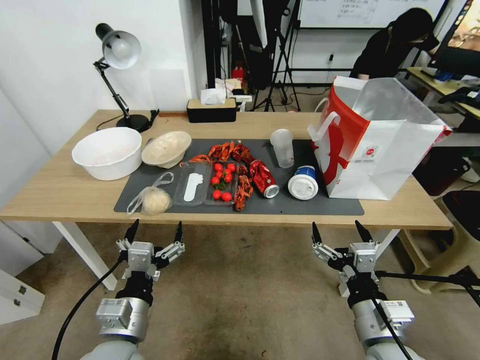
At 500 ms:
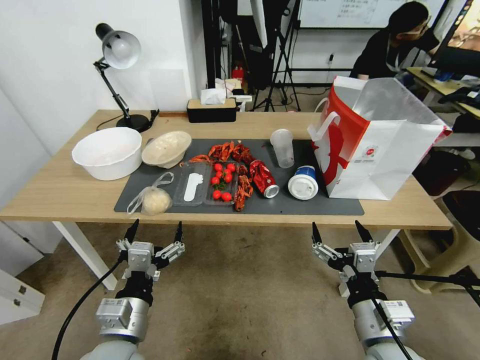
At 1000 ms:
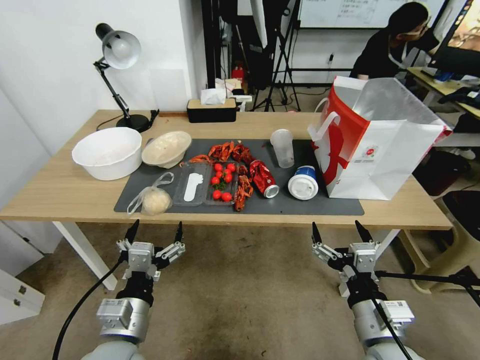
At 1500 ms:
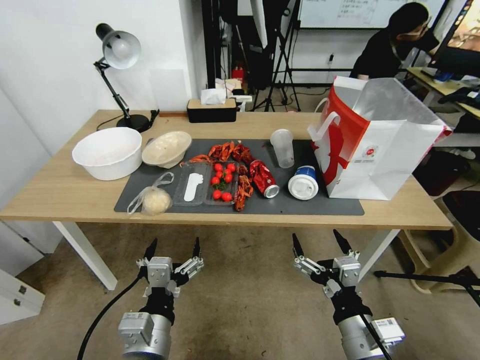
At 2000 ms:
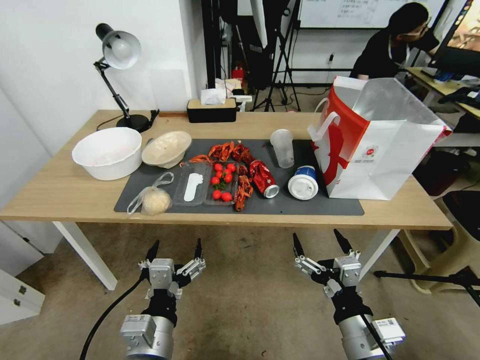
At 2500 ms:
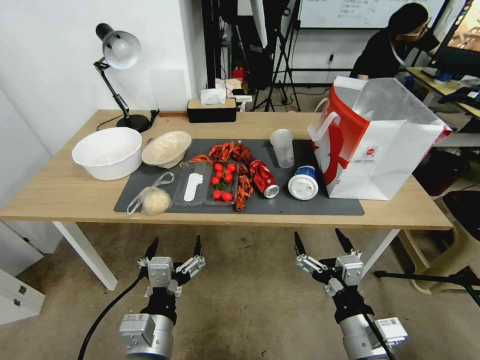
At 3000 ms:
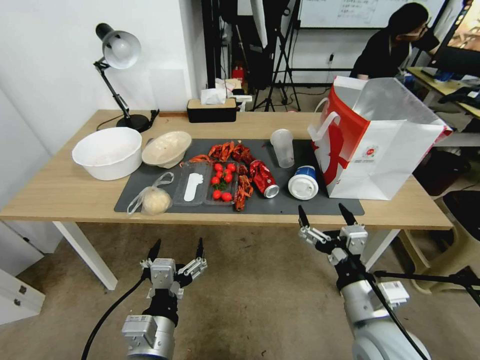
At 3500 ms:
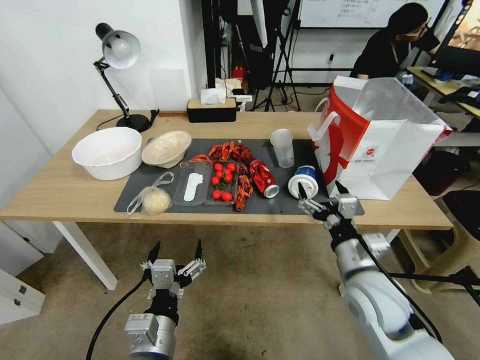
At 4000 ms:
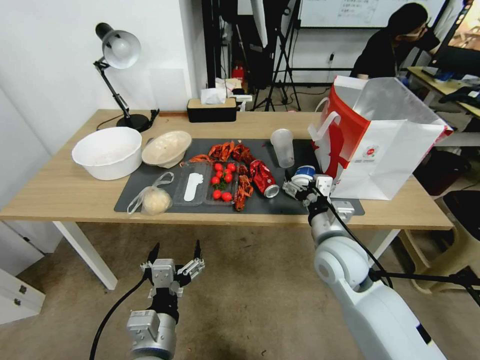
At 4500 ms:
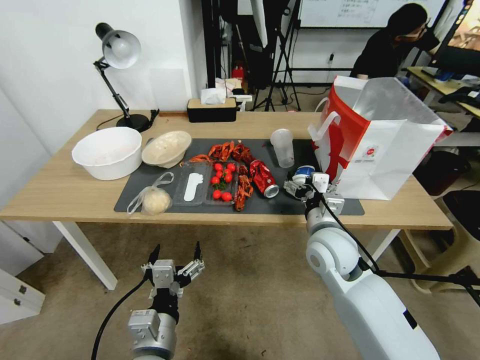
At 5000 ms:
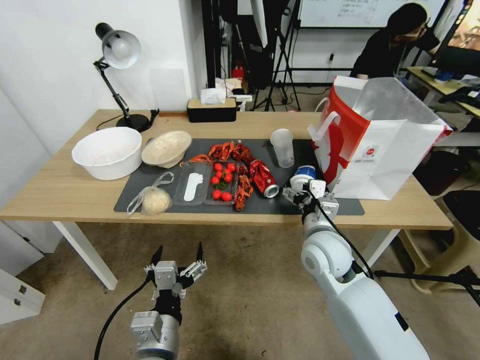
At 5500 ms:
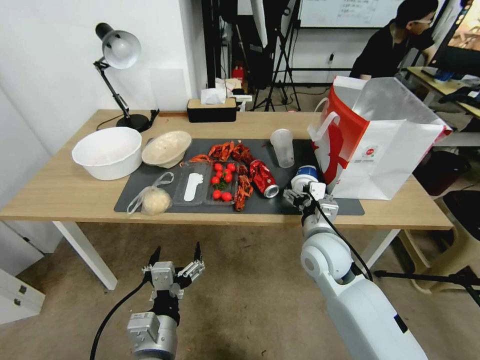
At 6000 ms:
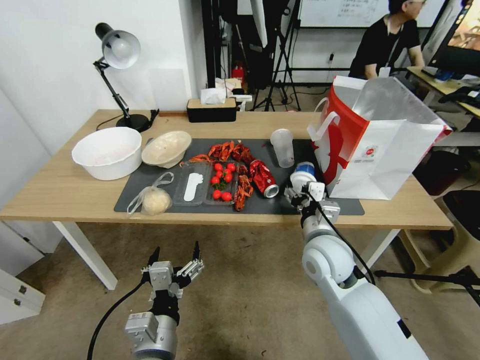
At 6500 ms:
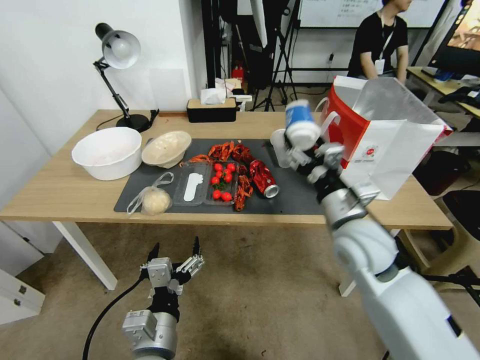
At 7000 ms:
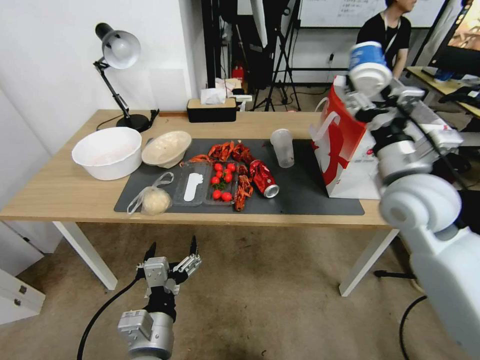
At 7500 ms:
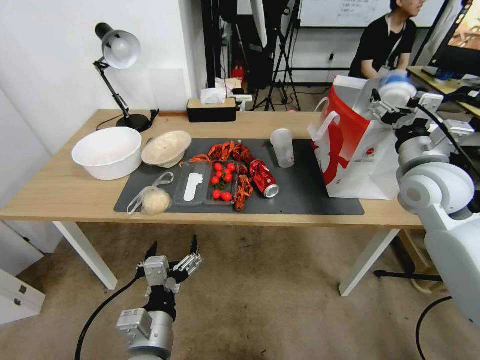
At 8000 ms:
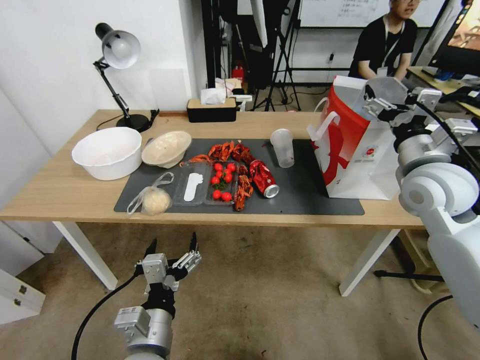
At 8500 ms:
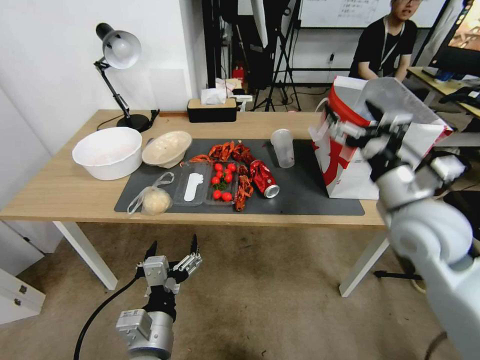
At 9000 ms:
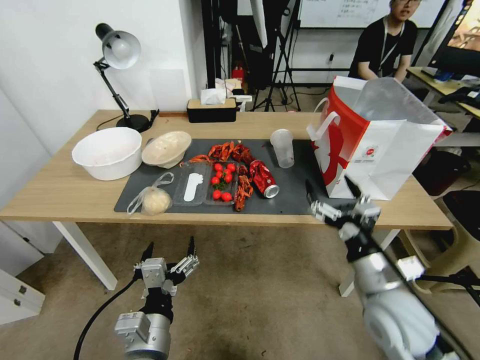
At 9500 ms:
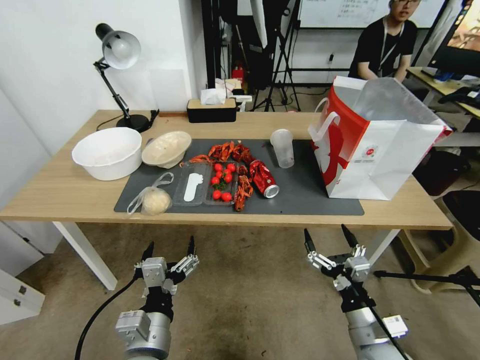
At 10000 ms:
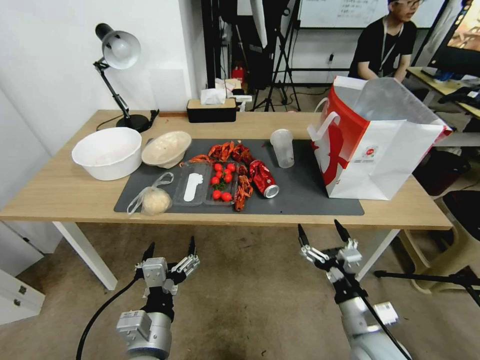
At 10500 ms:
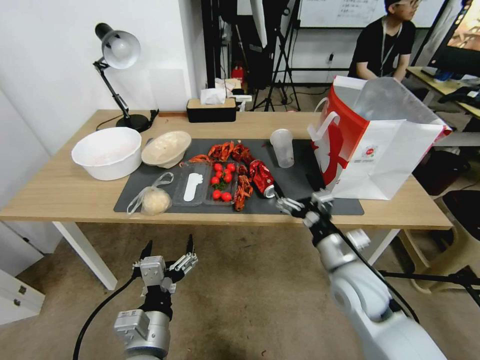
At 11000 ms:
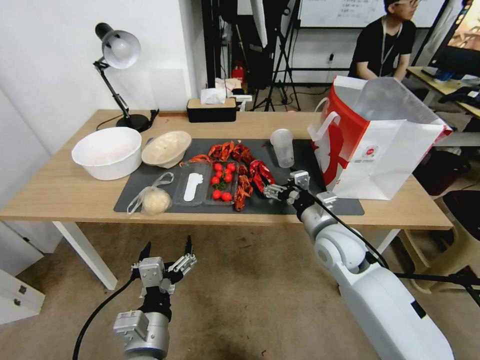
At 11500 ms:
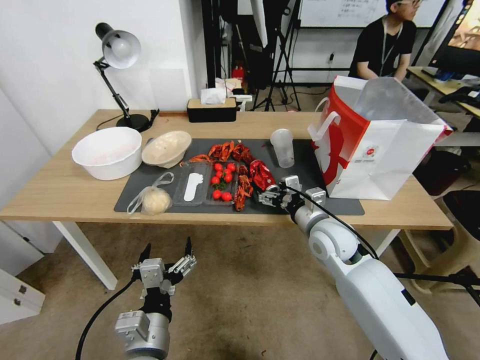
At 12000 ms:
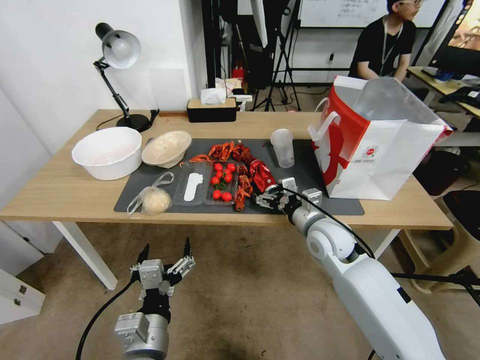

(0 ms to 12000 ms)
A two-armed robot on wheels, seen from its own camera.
2000 ms - 4000 ms: The right gripper travels forward by roughly 20 cm.
4000 ms - 6000 ms: The right gripper closes its fingers.
6000 ms - 8000 ms: The right gripper goes about 25 cm to the right and upward, and opens its fingers.
8000 ms - 10000 ms: The right gripper shifts about 30 cm downward and backward.
10000 ms - 12000 ms: The right gripper shifts approximately 20 cm forward.

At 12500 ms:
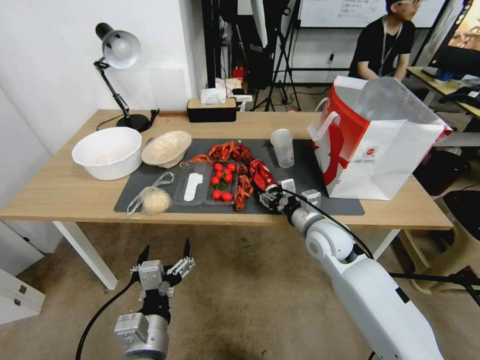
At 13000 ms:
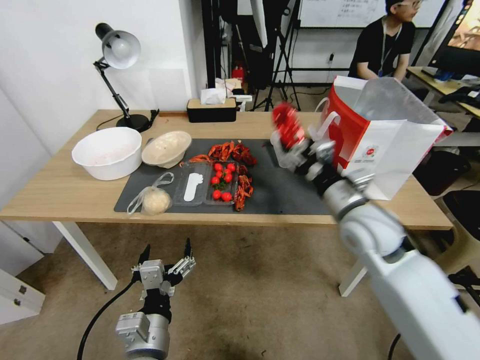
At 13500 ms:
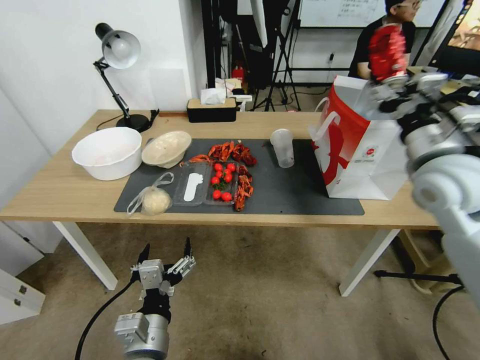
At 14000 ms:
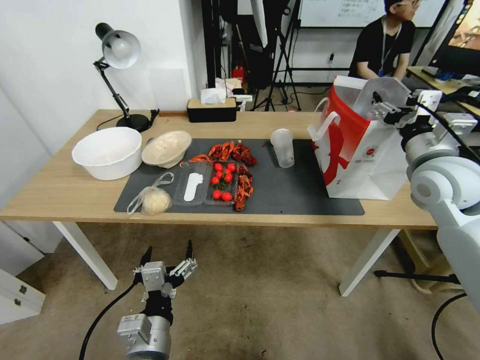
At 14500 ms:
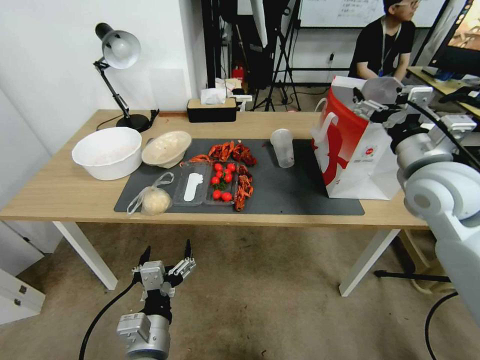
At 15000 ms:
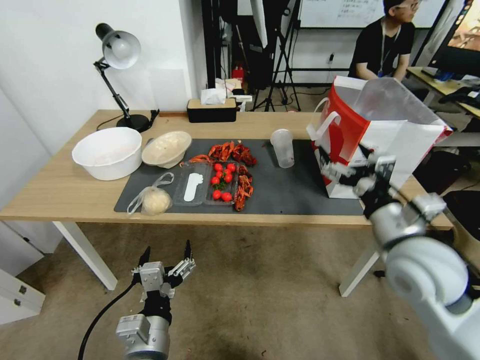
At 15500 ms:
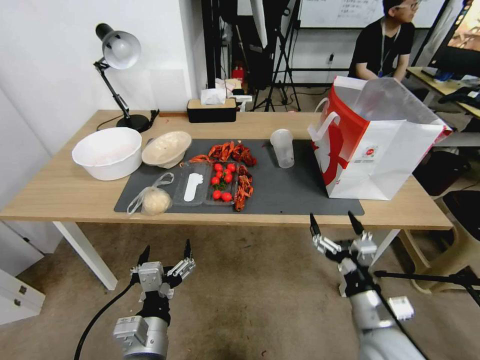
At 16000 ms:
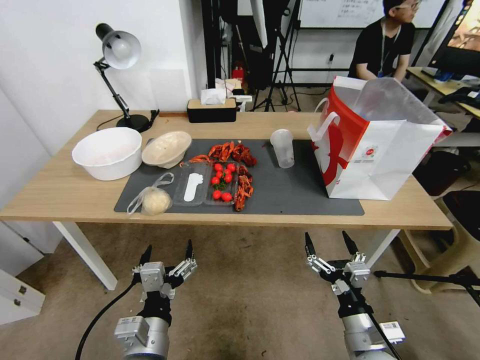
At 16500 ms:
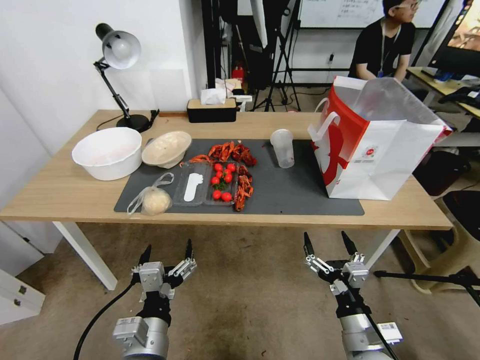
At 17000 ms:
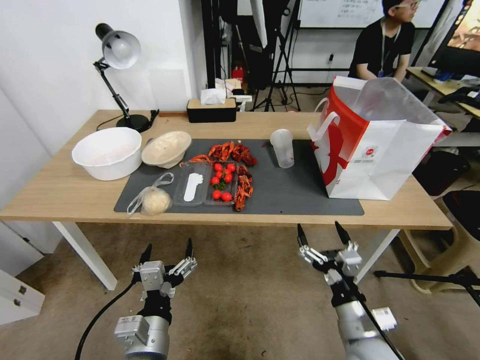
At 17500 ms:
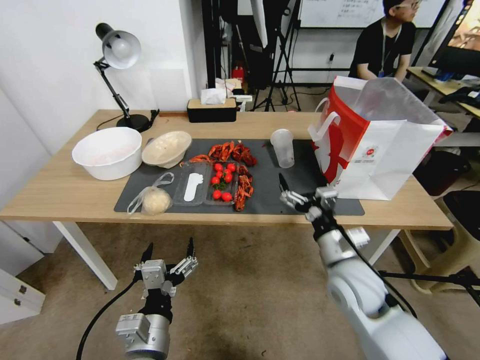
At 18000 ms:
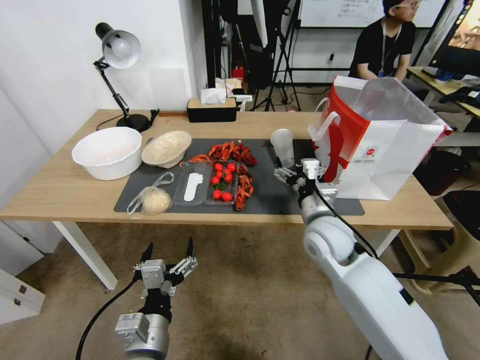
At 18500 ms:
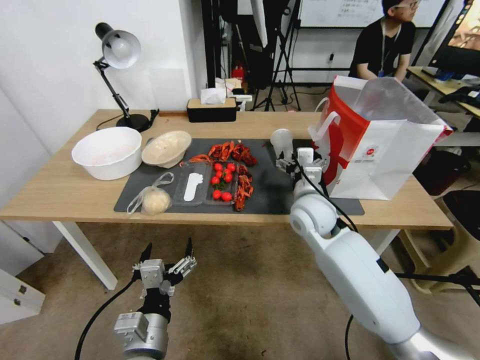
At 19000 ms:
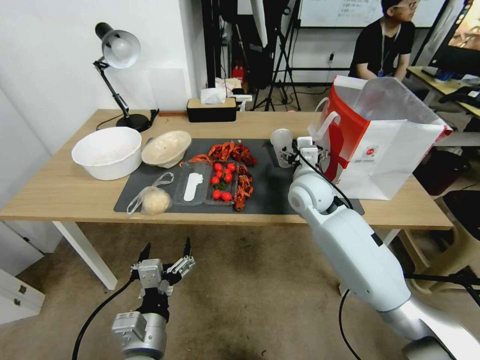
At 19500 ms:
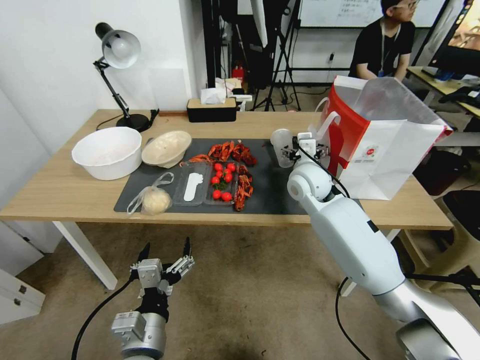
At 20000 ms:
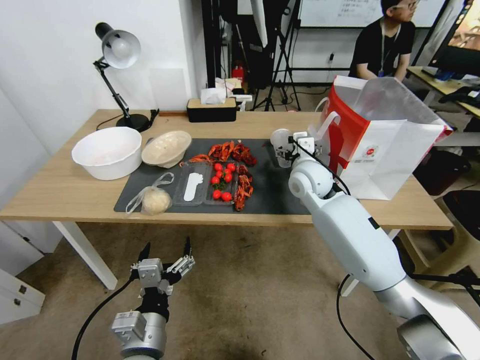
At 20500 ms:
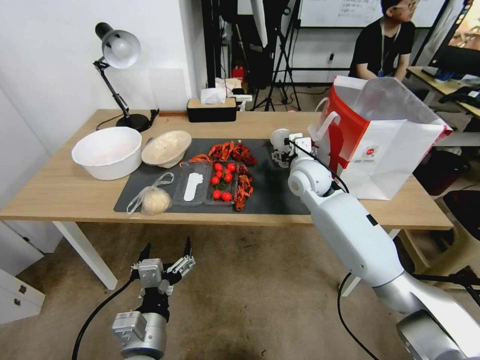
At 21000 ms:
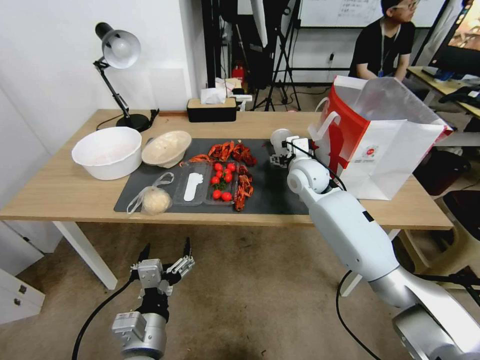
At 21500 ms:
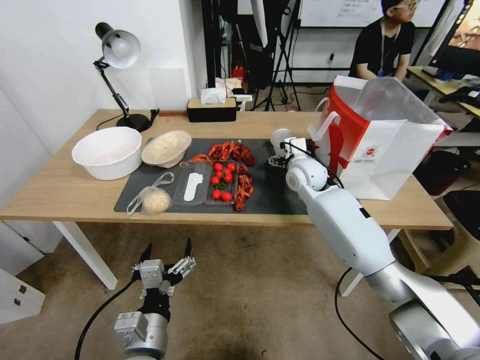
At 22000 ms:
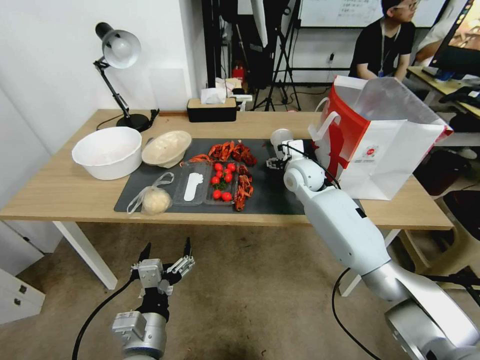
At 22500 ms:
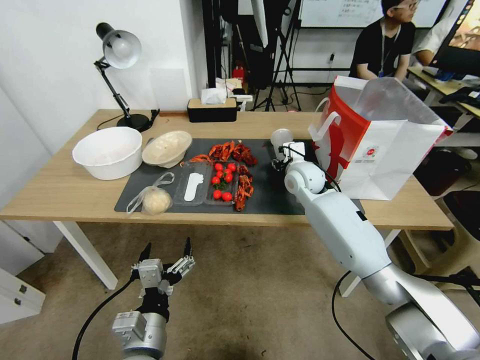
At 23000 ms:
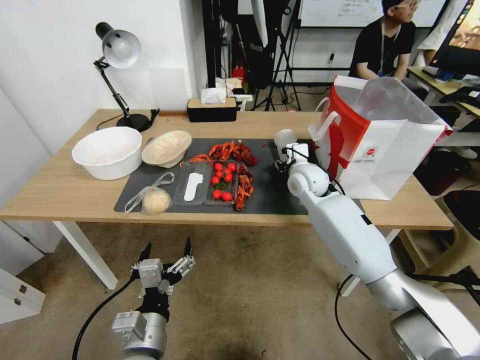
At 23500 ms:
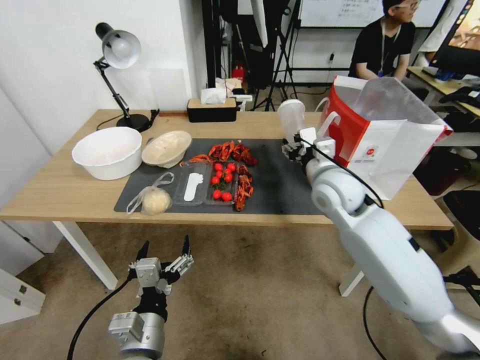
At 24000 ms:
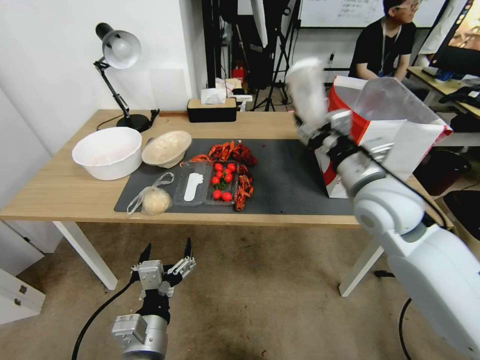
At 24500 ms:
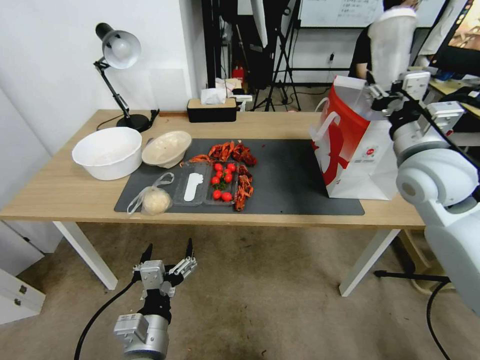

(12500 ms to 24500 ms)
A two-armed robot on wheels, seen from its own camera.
12500 ms - 14500 ms: The right gripper travels upward and to the right by approximately 25 cm, and opens up.
14500 ms - 16500 ms: The right gripper is displaced downward and backward by some 35 cm.
16500 ms - 18500 ms: The right gripper shifts about 30 cm forward and upward.
18500 ms - 20500 ms: The right gripper goes some 10 cm forward.
20500 ms - 22500 ms: The right gripper closes.
22500 ms - 24500 ms: The right gripper moves upward, backward and to the right, some 25 cm.

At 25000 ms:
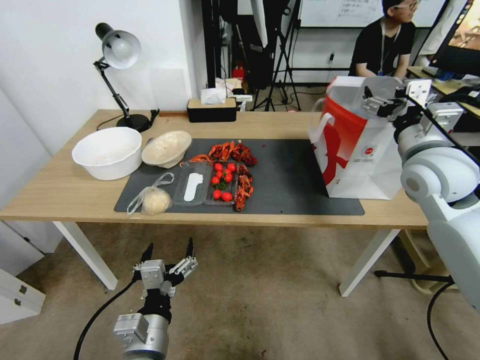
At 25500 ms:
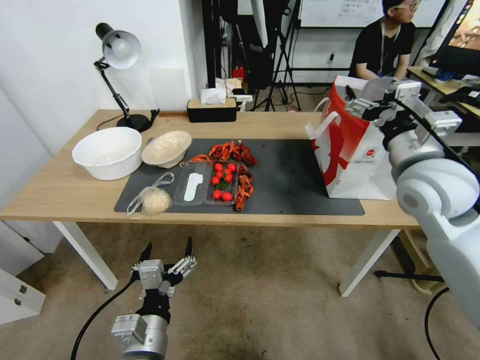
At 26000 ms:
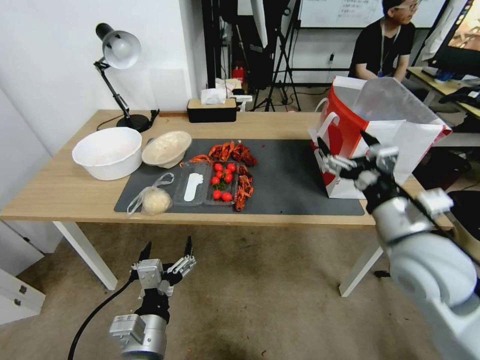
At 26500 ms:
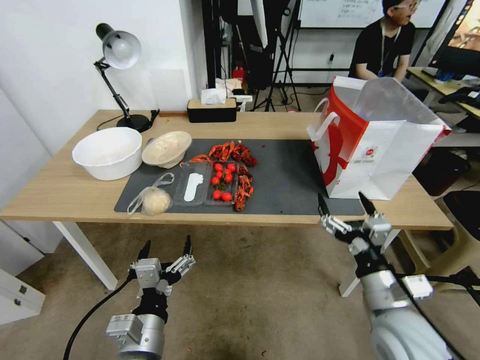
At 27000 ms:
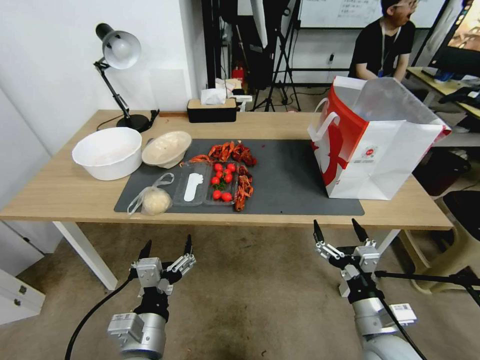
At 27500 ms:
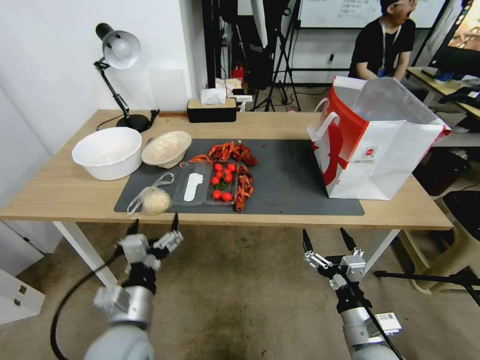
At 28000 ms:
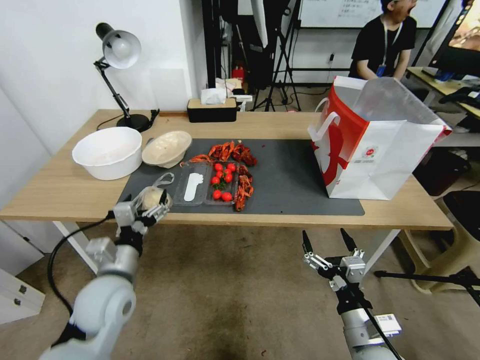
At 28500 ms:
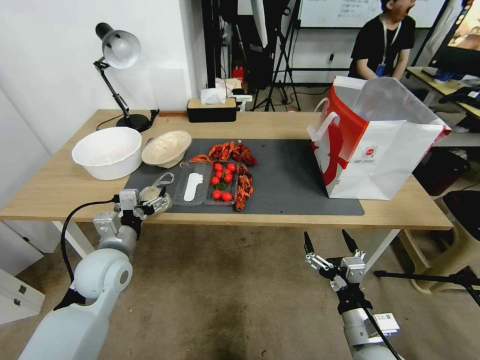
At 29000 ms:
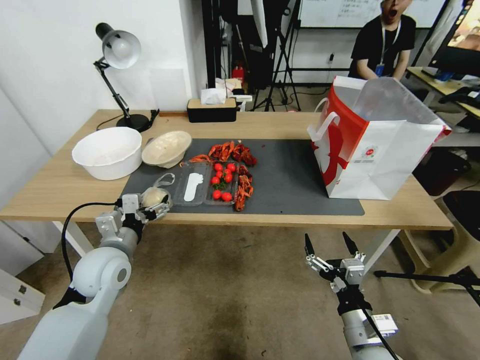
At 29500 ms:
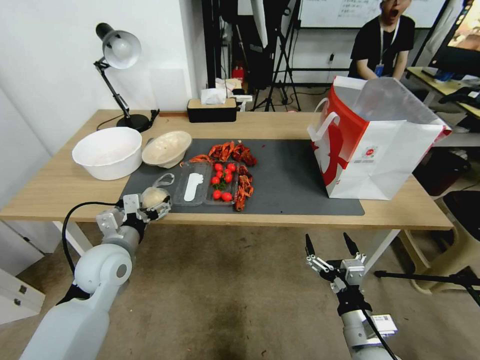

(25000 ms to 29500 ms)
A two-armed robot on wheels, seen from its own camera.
25000 ms - 27000 ms: The right gripper goes about 35 cm downward and backward.
27000 ms - 29500 ms: The left gripper travels forward and to the left by roughly 20 cm.
